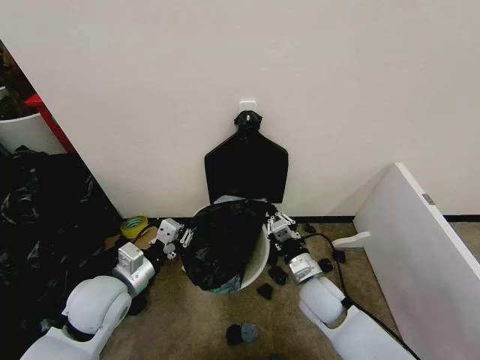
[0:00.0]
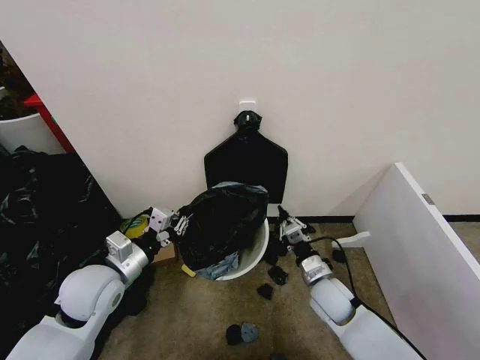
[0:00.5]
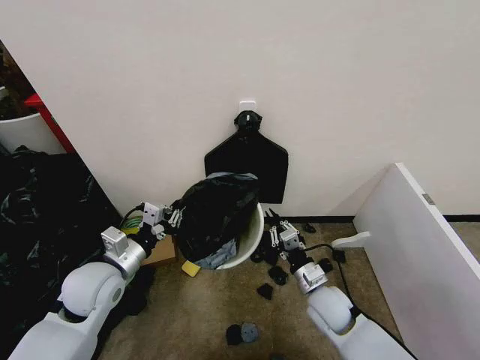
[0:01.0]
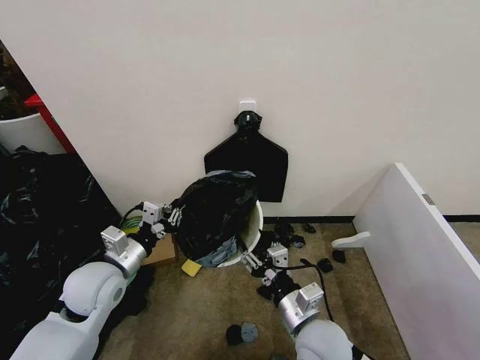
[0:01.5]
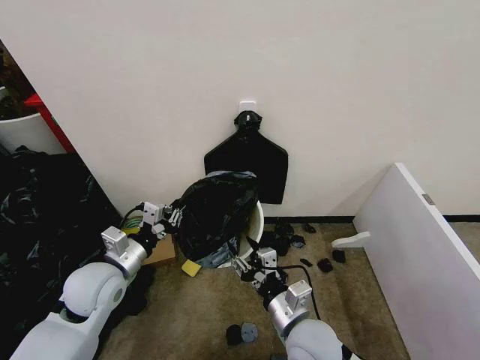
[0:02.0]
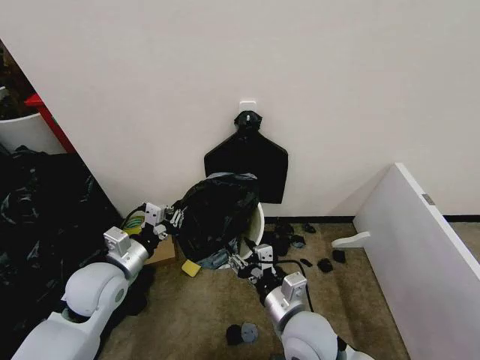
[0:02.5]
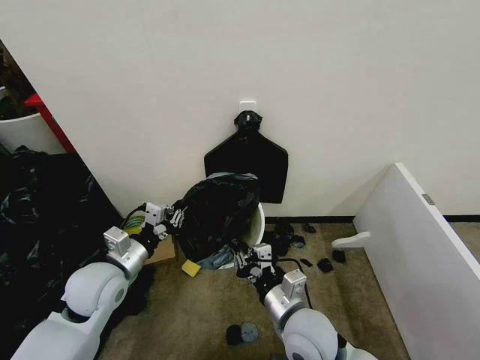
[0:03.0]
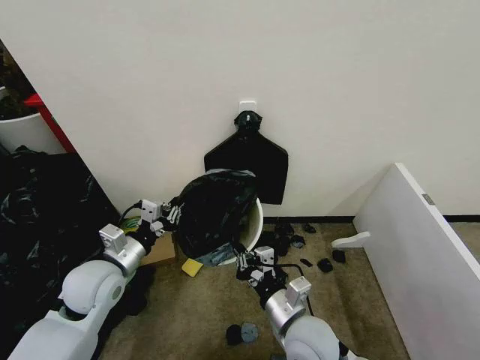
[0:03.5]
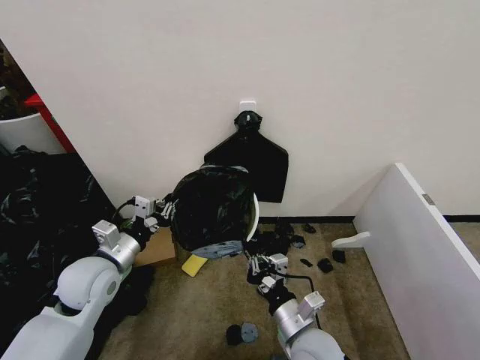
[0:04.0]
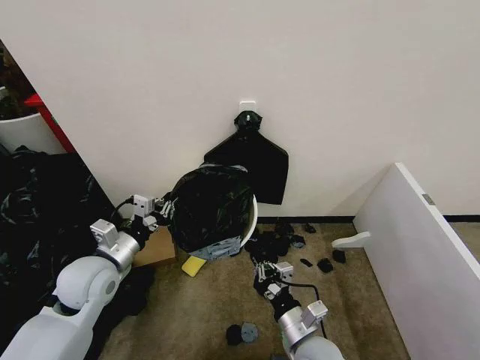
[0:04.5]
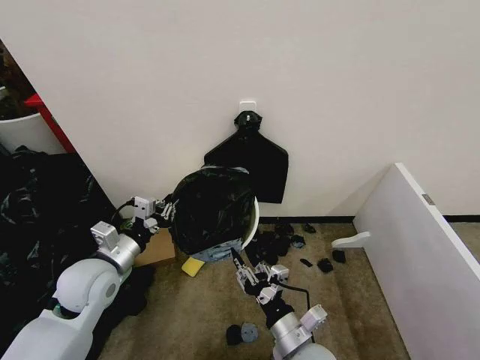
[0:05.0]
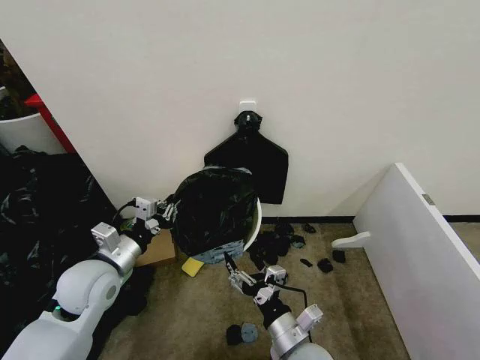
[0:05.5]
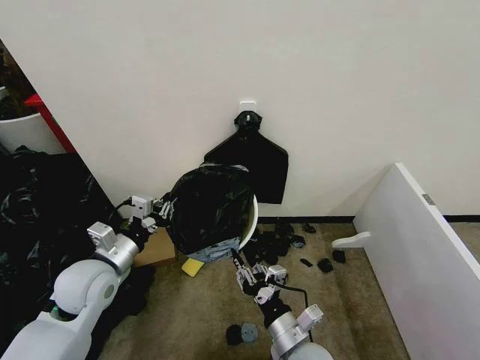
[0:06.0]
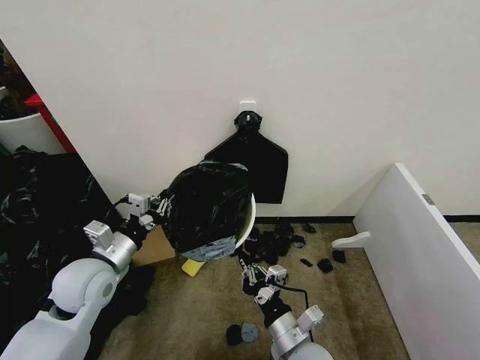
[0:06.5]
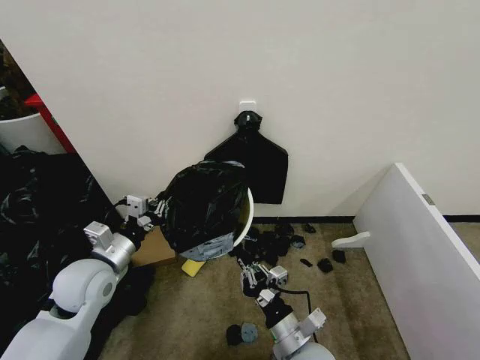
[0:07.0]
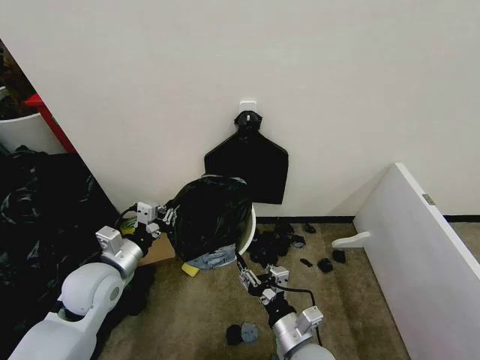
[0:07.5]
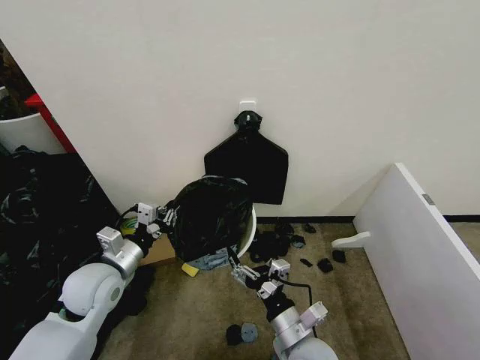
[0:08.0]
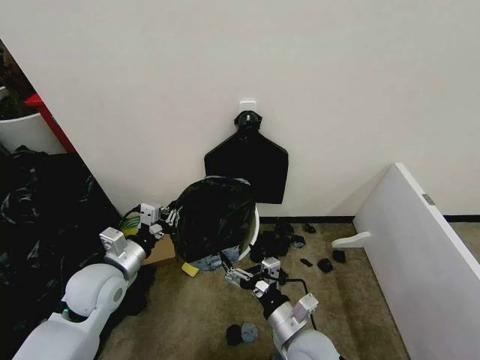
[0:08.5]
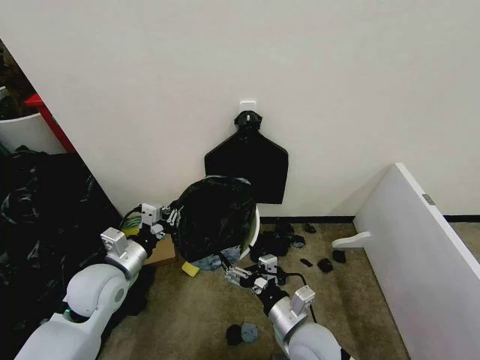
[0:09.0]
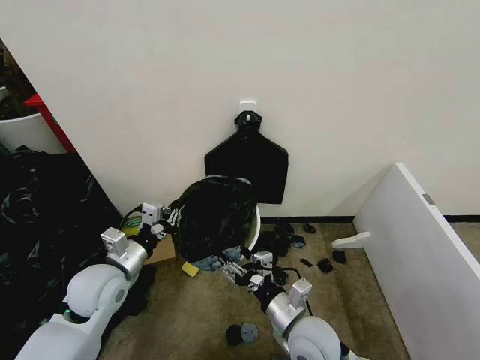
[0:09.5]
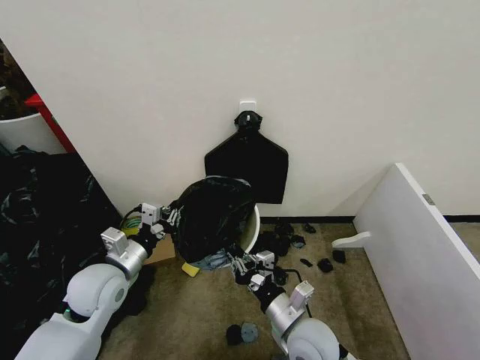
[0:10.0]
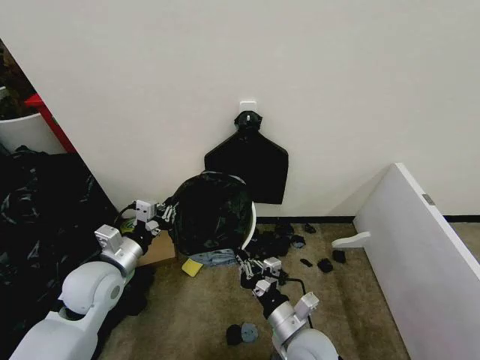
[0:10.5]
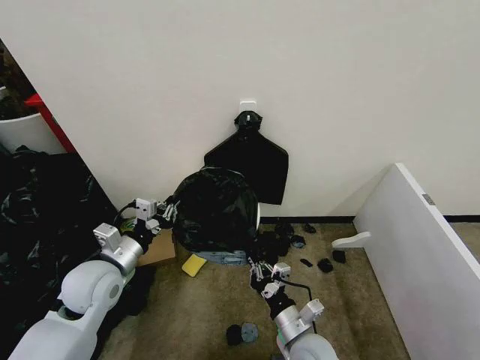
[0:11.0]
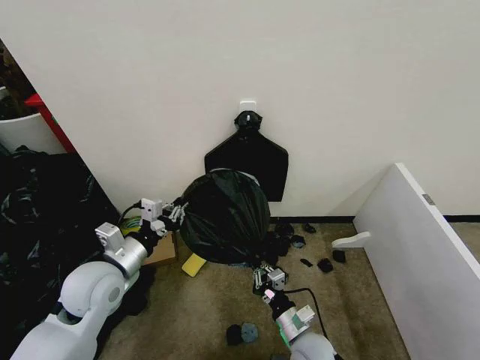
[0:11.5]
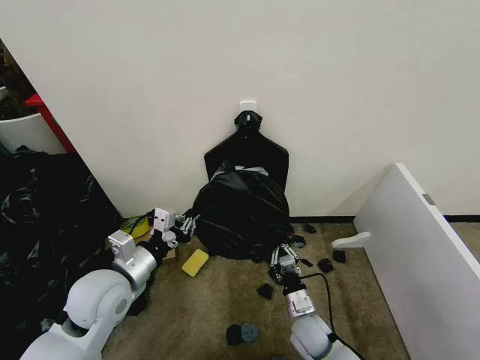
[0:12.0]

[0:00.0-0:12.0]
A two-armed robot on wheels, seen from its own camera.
Task of the whole recording: Place the garbage bag over the trash bin.
0:00.0 to 0:02.0: The right gripper is displaced backward, to the left and upward by about 15 cm, and opens up.
0:02.0 to 0:04.0: The right gripper closes up.
0:04.0 to 0:06.0: The right gripper opens up.
0:06.0 to 0:08.0: The right gripper opens its fingers.
0:08.0 to 0:10.0: The right gripper closes its fingers.
0:10.0 to 0:12.0: The right gripper is displaced downward by some 15 cm.

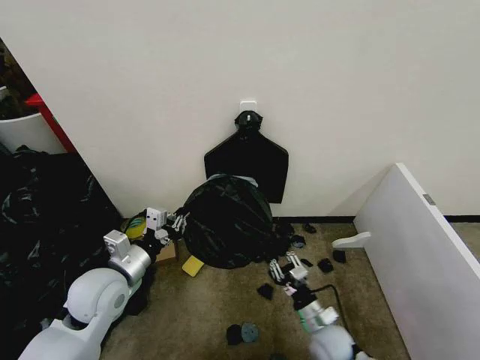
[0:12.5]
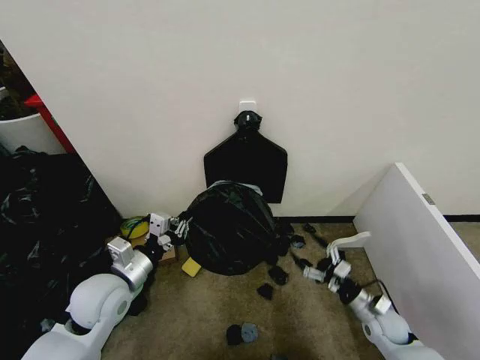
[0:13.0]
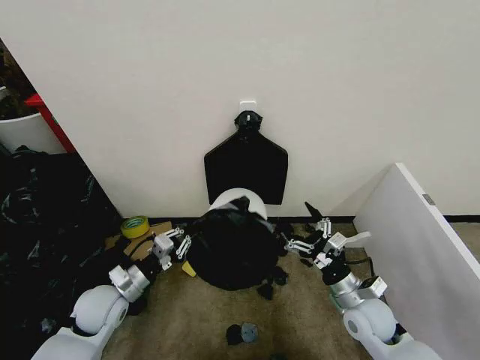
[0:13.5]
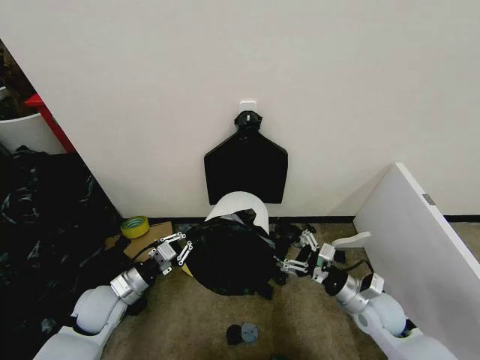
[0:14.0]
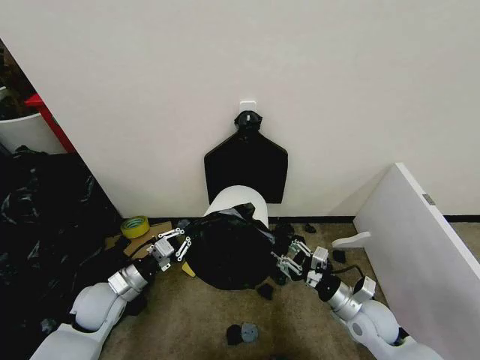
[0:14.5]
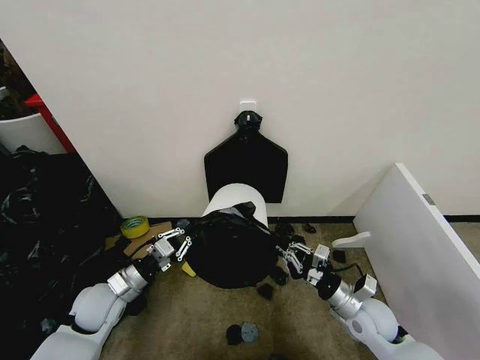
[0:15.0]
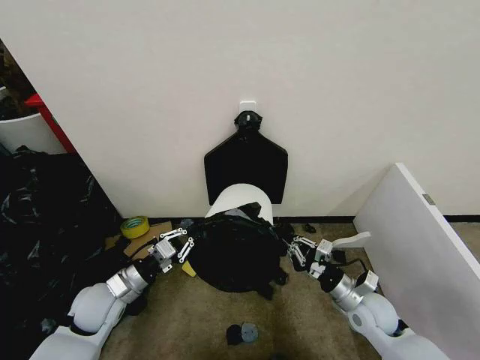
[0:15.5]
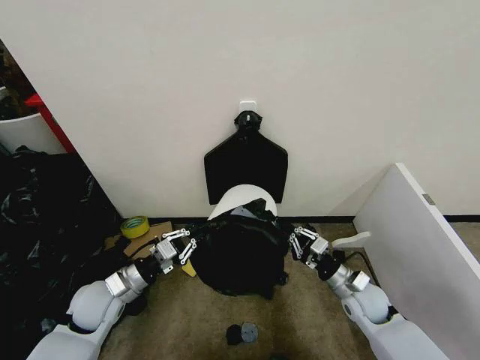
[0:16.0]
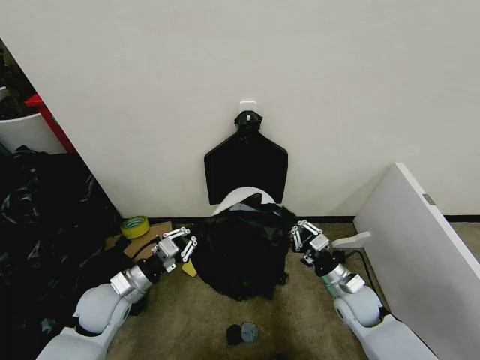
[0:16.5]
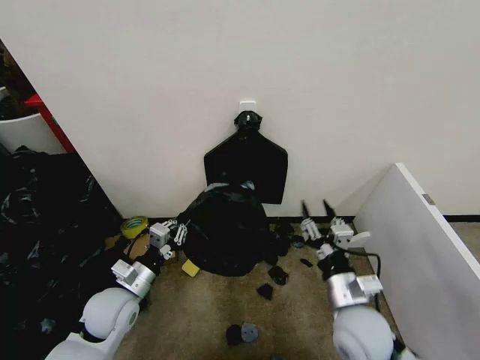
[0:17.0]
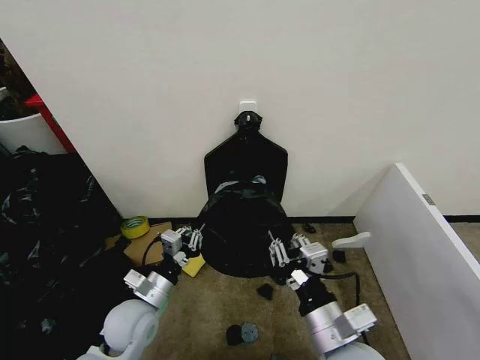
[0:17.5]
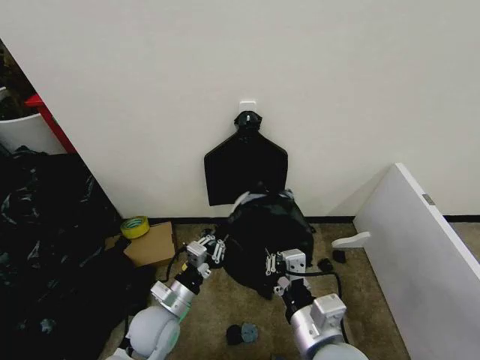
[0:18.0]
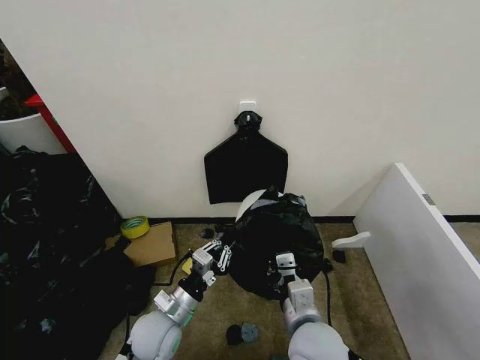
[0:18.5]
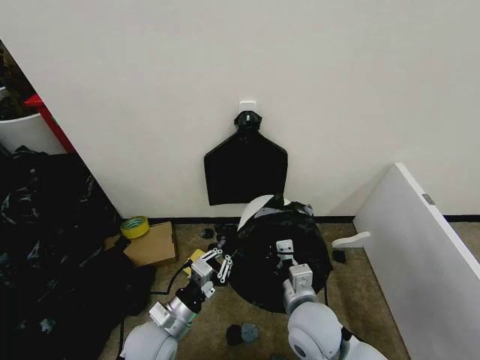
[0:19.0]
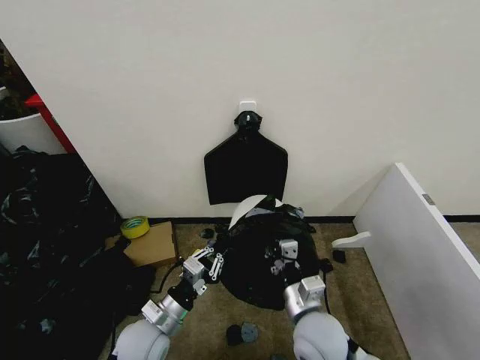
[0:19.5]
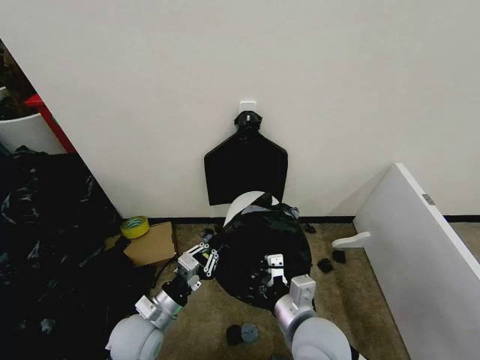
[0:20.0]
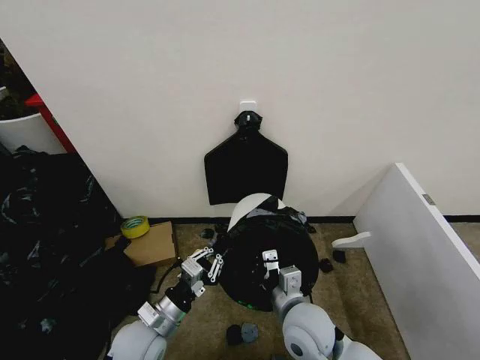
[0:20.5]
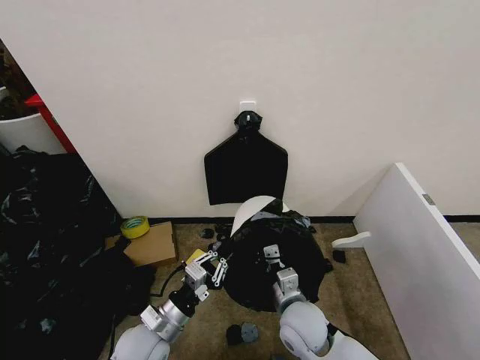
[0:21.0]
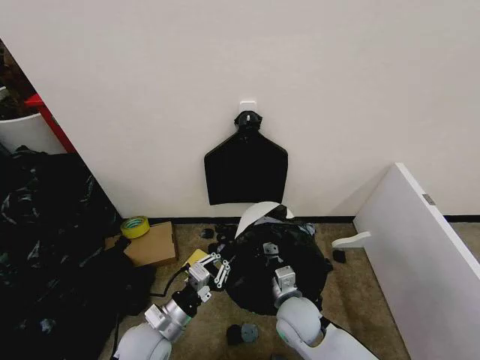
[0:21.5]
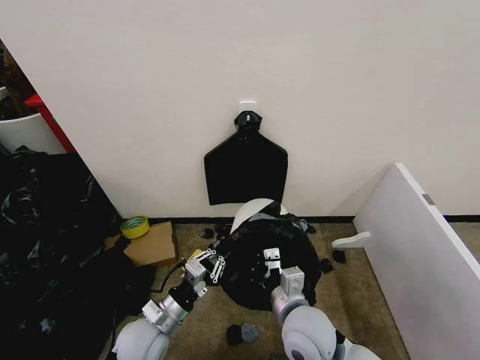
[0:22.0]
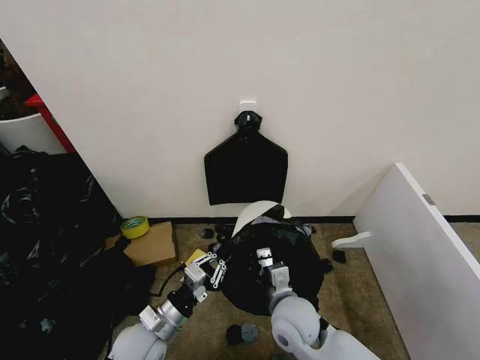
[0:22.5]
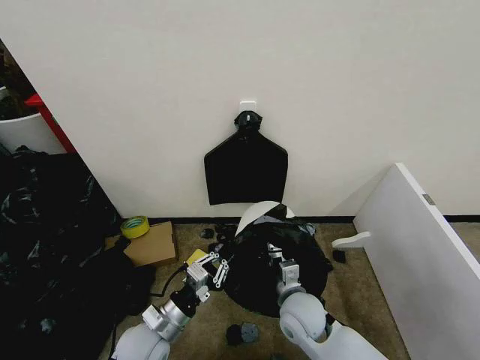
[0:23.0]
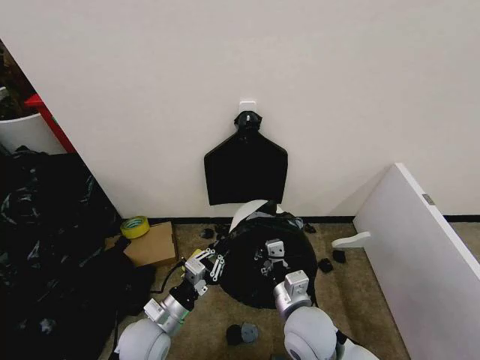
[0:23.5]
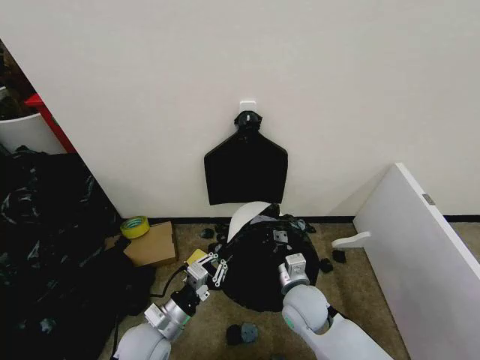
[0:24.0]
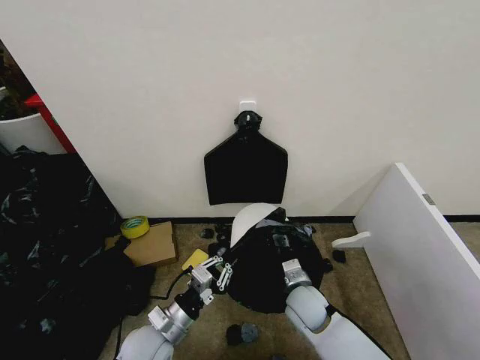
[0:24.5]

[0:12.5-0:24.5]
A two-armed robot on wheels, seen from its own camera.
Task of the whole recording: Place the garbage bag over the trash bin.
0:12.5 to 0:14.5: The right gripper shifts approximately 15 cm upward and to the right, and opens, then closes again, while the left gripper goes some 10 cm downward.
0:14.5 to 0:16.5: The right gripper shifts by some 5 cm, and closes up.
0:16.5 to 0:18.5: The left gripper goes approximately 10 cm to the right, while the right gripper moves to the left, backward and upward, about 25 cm, and opens and closes again.
0:18.5 to 0:20.5: The right gripper shifts by about 5 cm.
0:20.5 to 0:22.5: The right gripper moves about 5 cm downward and comes back.
0:22.5 to 0:24.5: The right gripper moves downward, forward and to the right, about 10 cm.

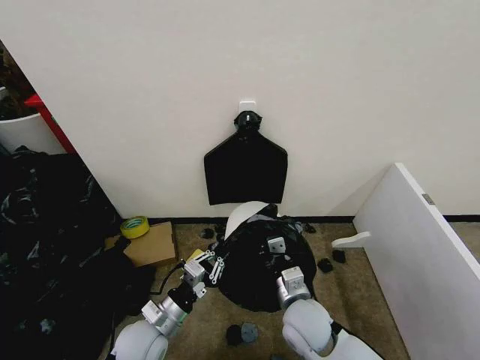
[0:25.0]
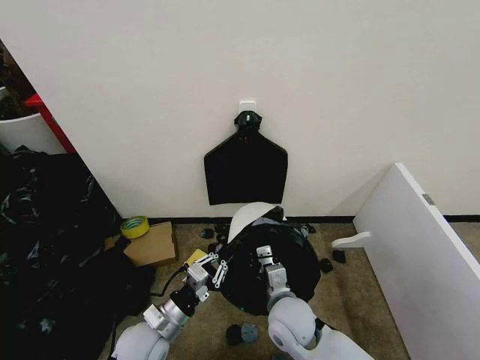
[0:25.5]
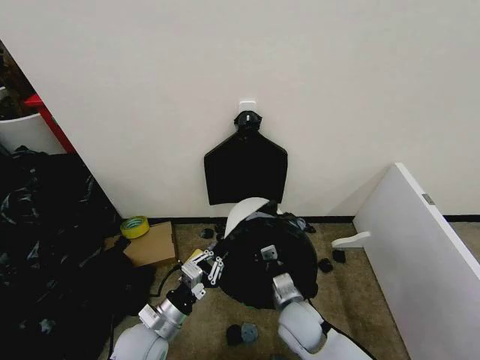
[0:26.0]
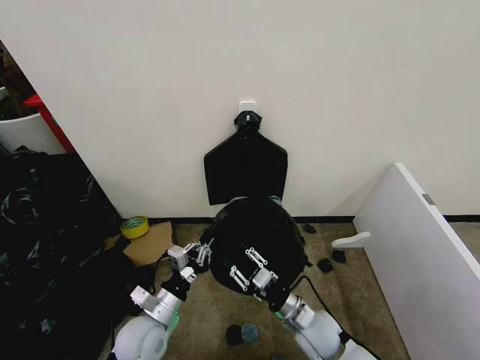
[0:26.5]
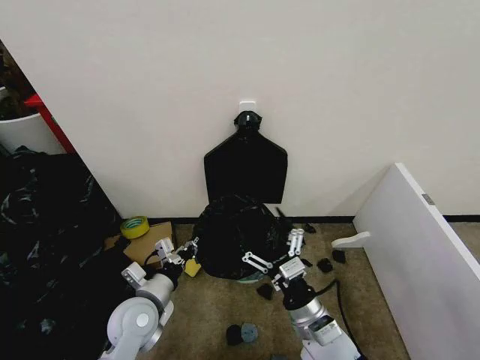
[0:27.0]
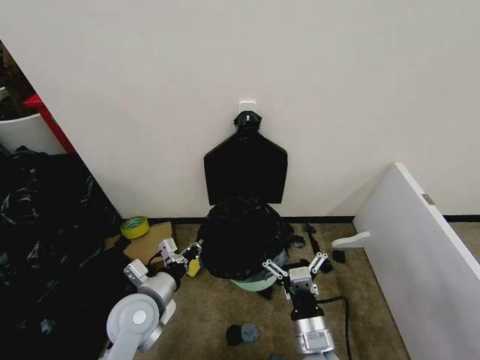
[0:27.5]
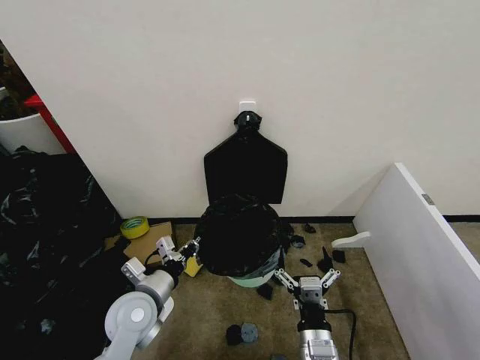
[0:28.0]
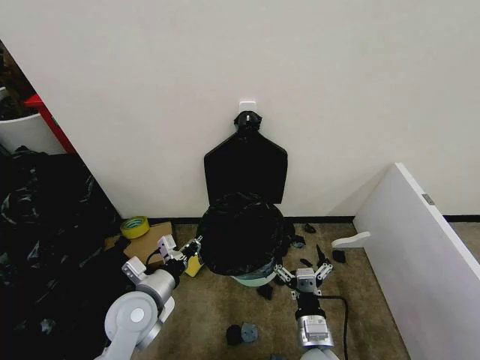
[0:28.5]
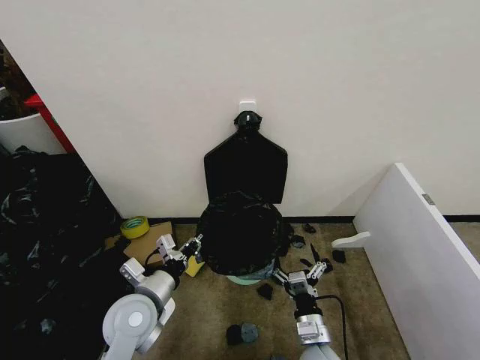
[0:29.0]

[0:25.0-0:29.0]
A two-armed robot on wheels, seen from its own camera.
Task of the whole recording: Place the garbage bag over the trash bin.
0:25.0 to 0:27.0: The right gripper shifts by some 5 cm, and opens its fingers; the left gripper moves some 5 cm.
0:27.0 to 0:29.0: The right gripper is displaced downward by some 10 cm.
